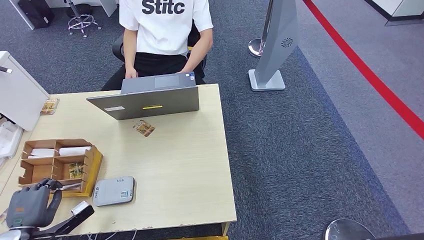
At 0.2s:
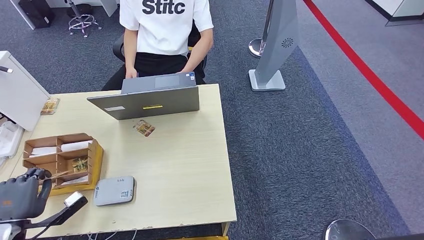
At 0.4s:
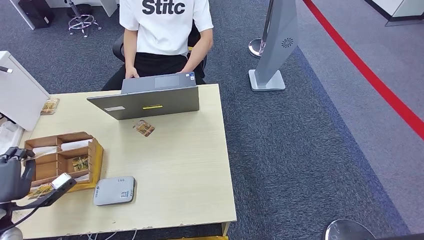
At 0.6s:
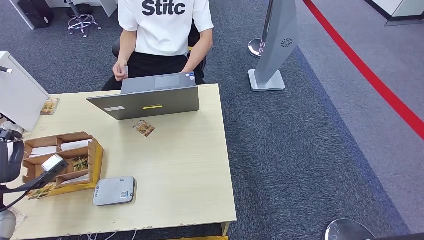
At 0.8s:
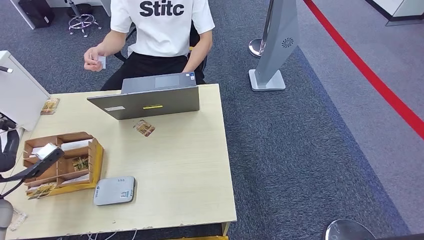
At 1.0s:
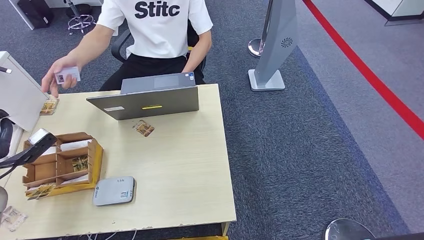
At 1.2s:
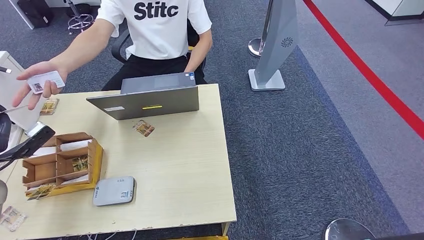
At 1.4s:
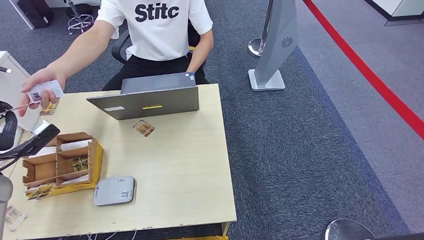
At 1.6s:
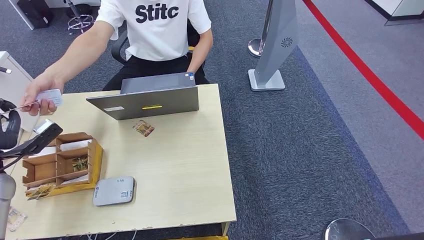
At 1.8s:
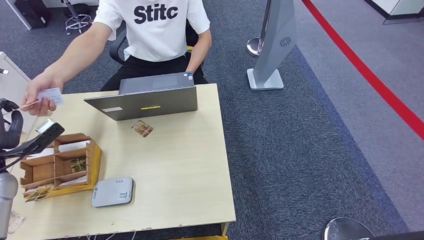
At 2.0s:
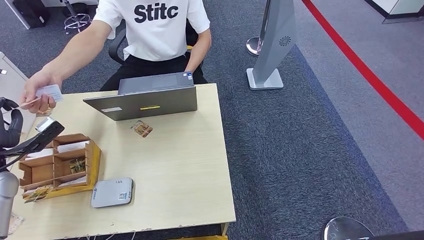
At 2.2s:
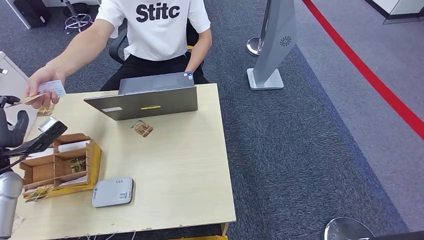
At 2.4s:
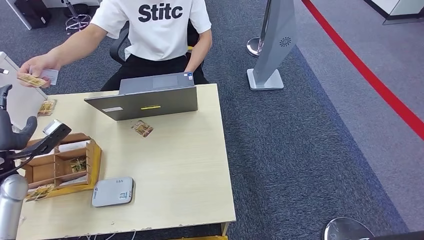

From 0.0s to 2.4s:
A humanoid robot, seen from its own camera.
Step, from 1.0s to 2.4s: Hand the room key to the person.
From 0.0s to 1.2s: The left hand travels upward and forward by some 20 cm.
From 1.2s to 2.4s: The hands make only small movements.

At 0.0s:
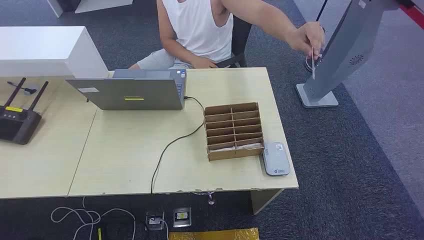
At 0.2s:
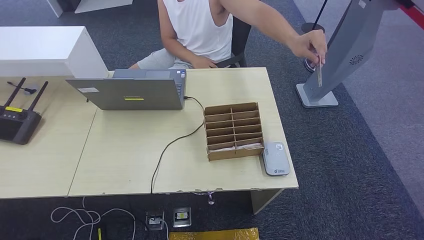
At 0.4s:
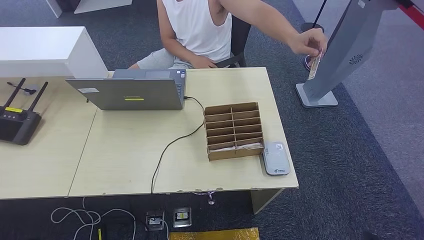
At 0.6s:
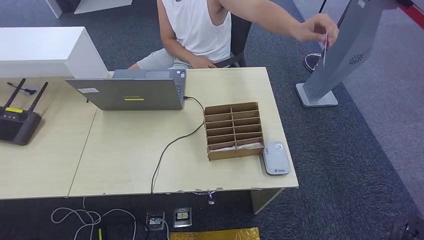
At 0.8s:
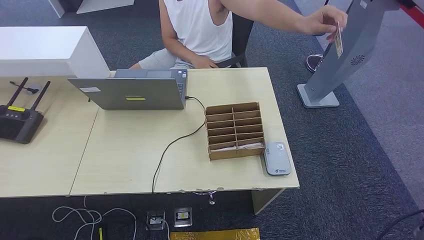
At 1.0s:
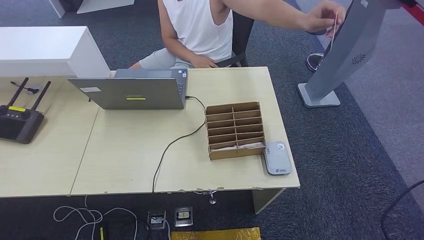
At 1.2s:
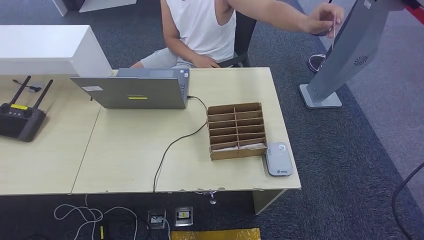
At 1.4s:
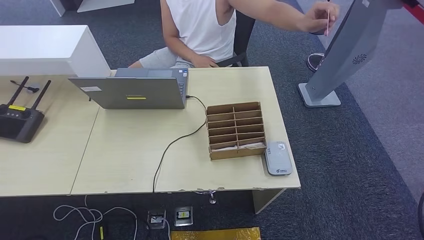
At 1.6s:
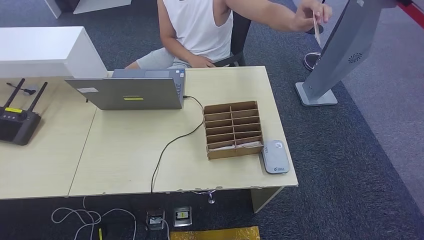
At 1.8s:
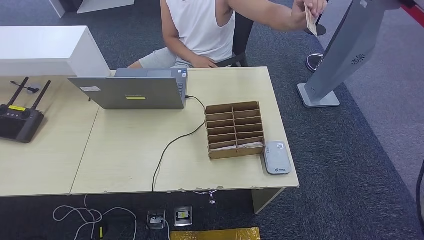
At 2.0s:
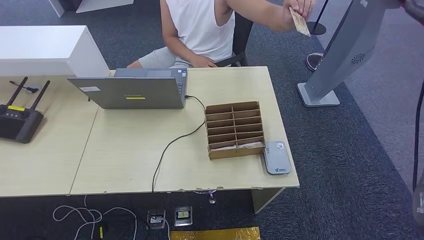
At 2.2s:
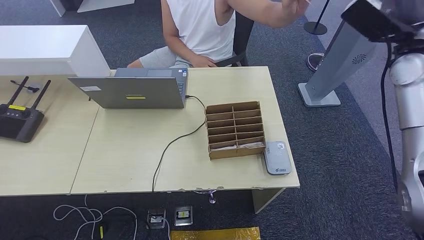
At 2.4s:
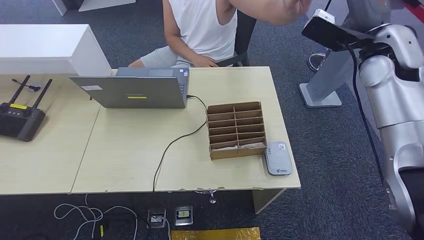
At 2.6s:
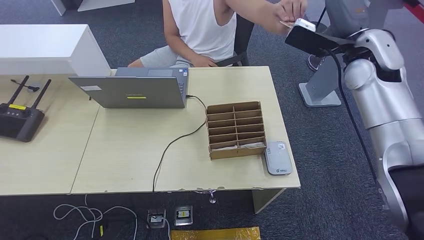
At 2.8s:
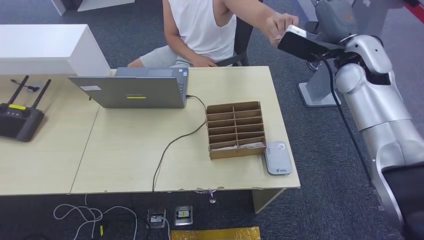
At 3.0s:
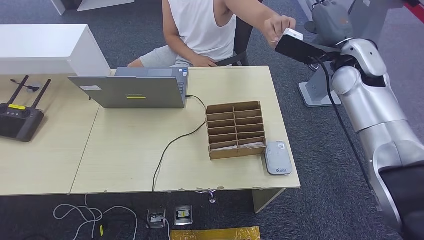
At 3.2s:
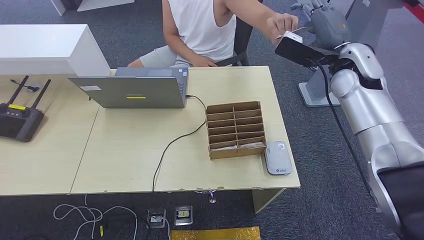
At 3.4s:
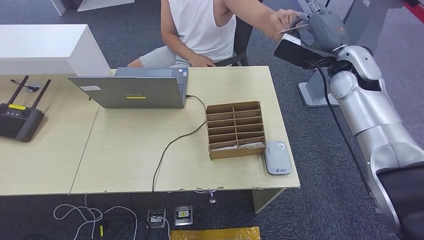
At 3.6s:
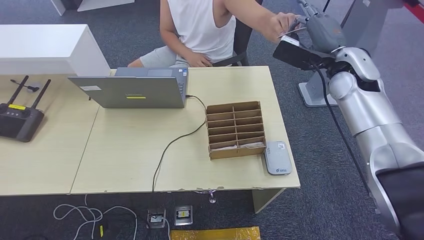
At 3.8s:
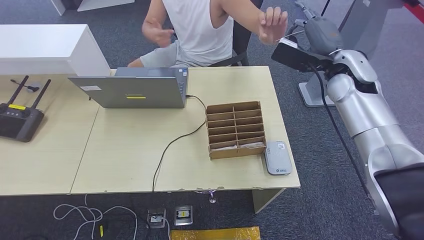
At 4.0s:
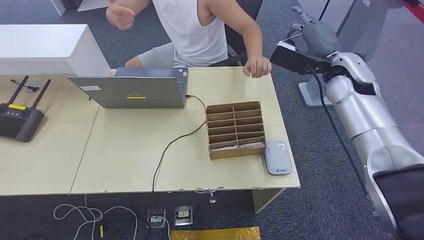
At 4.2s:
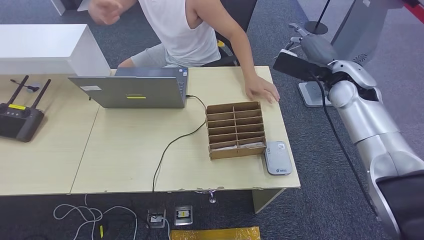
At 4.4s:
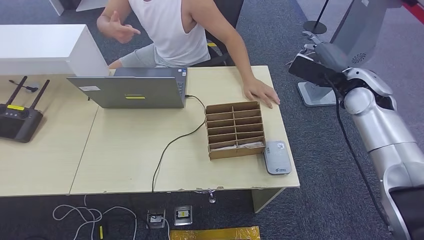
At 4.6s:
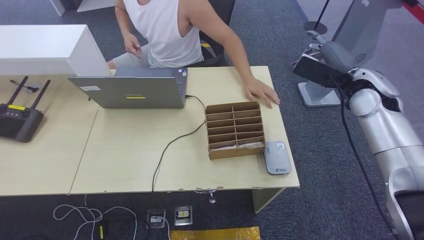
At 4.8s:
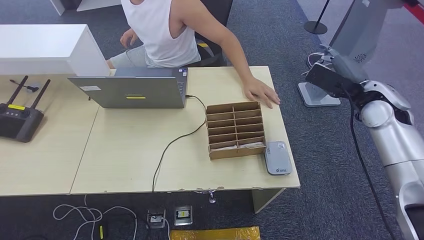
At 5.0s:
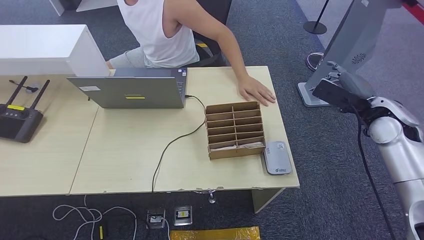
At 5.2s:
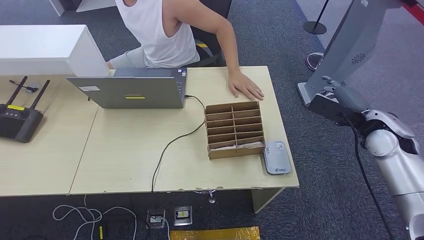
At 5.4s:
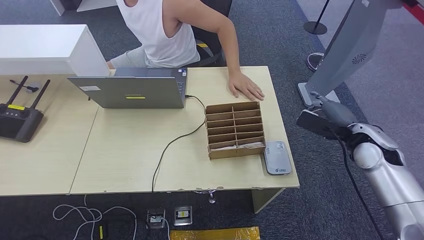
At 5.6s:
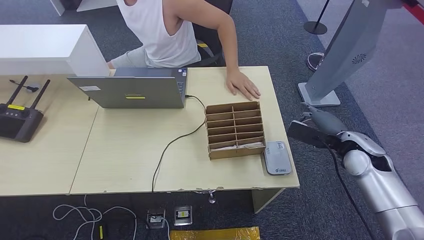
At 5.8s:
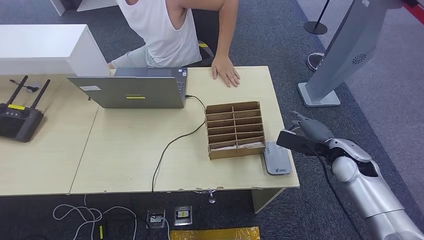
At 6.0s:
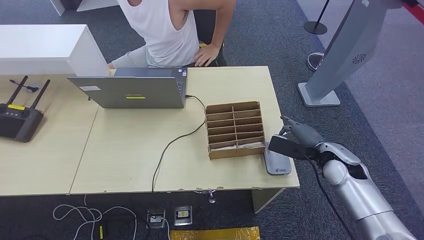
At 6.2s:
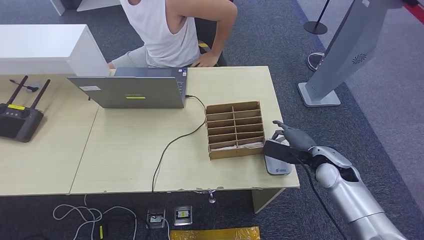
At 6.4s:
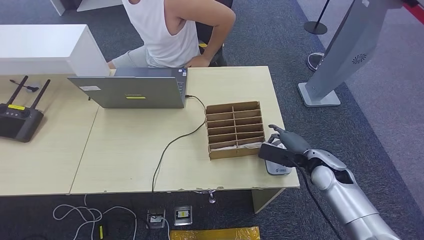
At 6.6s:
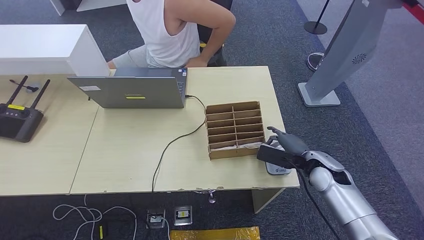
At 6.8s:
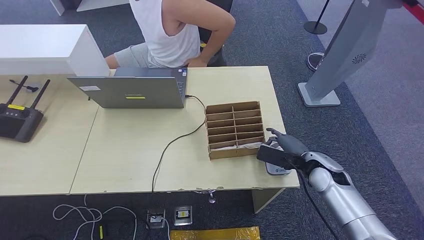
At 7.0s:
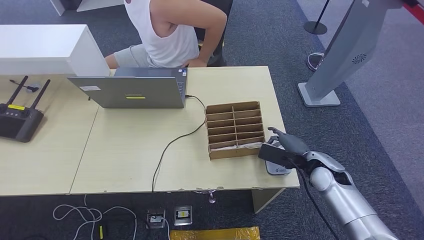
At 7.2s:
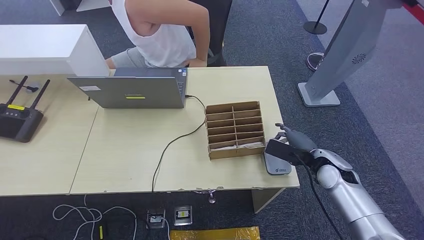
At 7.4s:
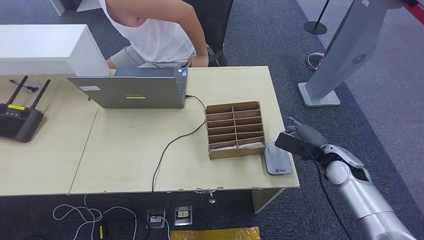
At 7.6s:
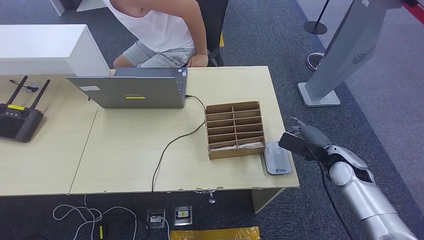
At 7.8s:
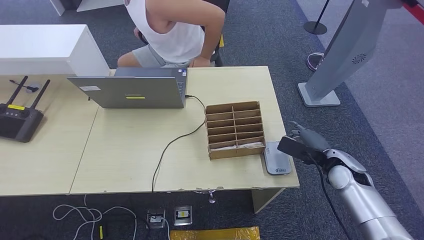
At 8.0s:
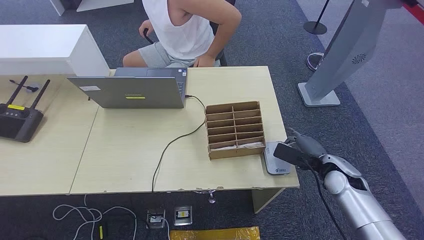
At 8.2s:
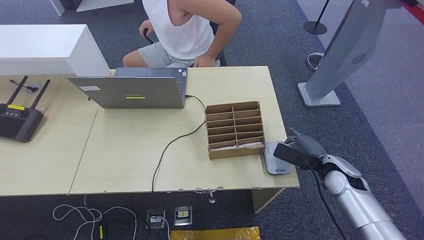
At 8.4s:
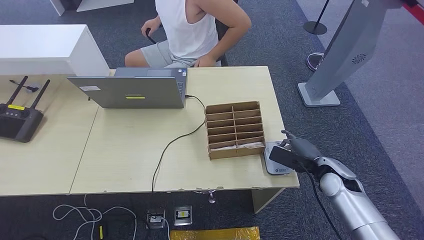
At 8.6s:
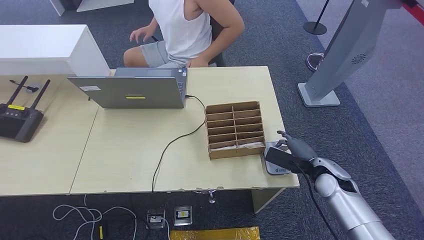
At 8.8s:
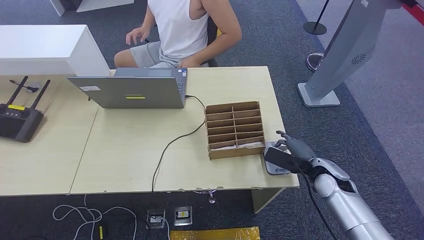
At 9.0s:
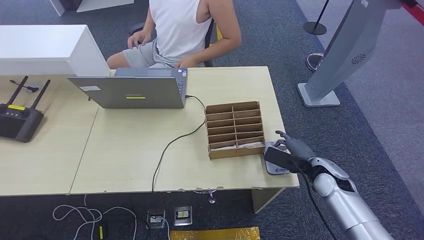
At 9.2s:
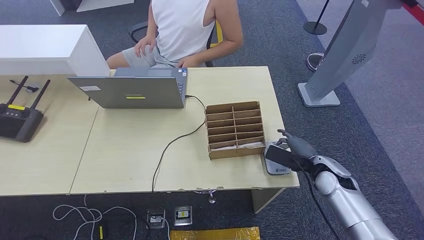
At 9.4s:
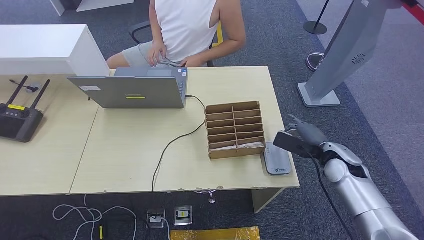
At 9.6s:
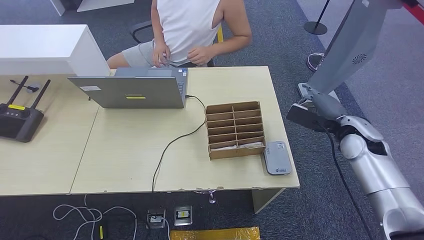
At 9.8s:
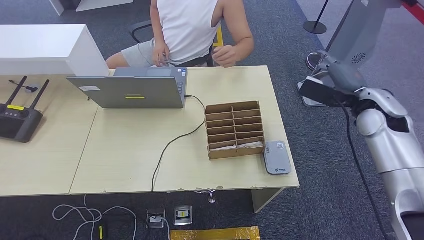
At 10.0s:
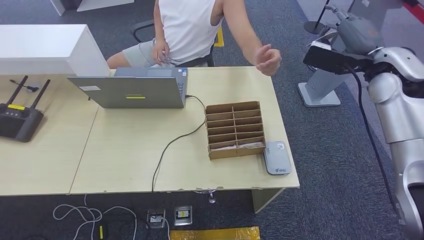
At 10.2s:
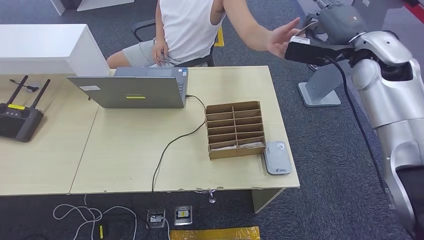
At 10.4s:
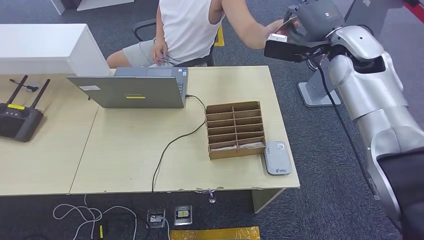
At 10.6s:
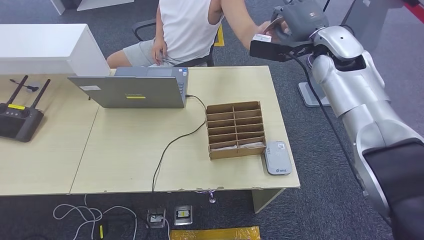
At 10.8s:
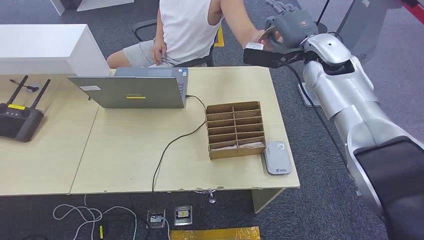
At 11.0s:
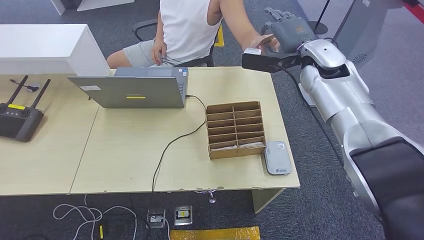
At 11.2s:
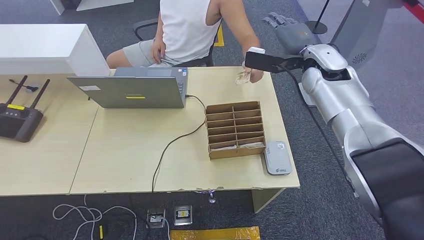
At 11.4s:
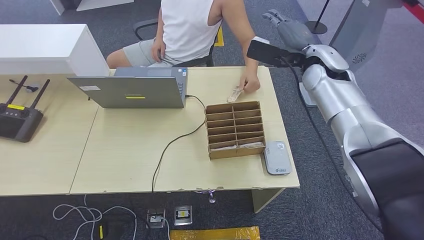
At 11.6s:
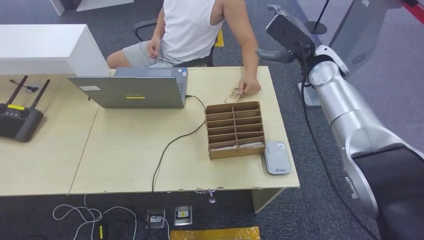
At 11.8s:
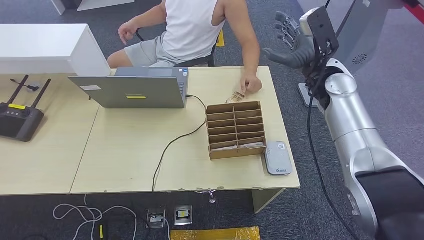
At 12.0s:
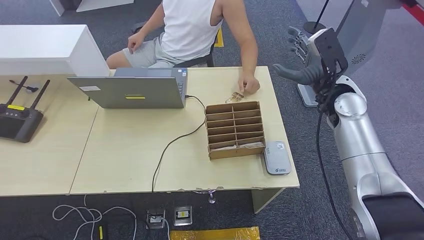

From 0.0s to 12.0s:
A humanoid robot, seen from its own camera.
Step, from 0.0s to 4.4s: Take the ID card from the person's hand.
Step, from 4.6s to 7.6s: Place the ID card on the card reader.
Step, from 7.8s to 10.8s: Hand the ID card to the person.
From 4.4s to 6.0s: The right hand heads downward and backward, covering roughly 20 cm.
From 6.0s to 7.6s: The hands make only small movements.
From 7.6s to 9.0s: The right hand changes place by about 5 cm.
From 10.4s to 12.0s: The right hand moves downward, approximately 10 cm.

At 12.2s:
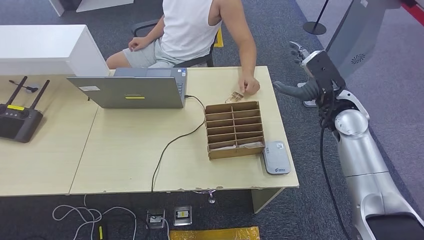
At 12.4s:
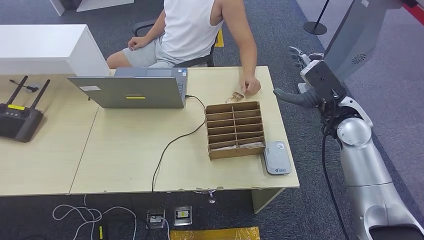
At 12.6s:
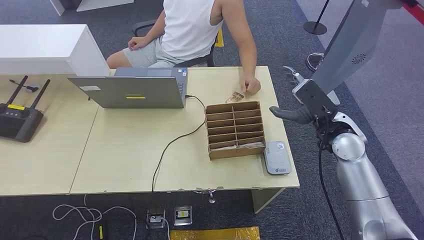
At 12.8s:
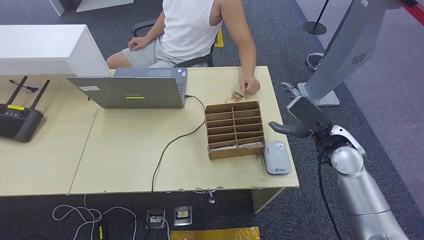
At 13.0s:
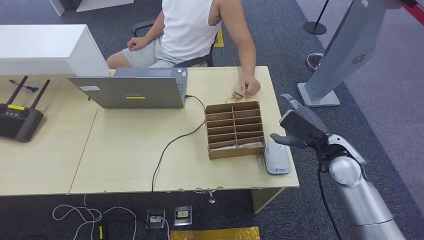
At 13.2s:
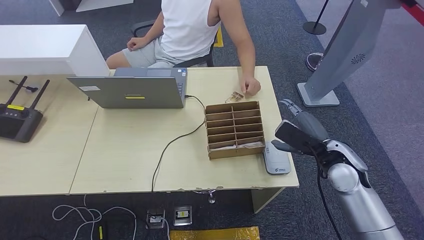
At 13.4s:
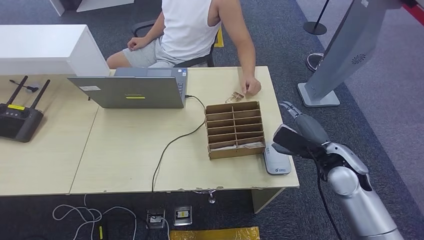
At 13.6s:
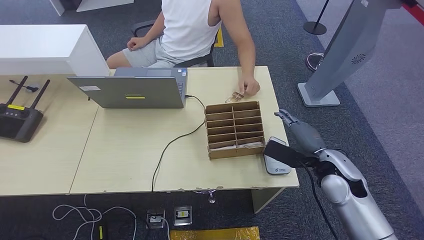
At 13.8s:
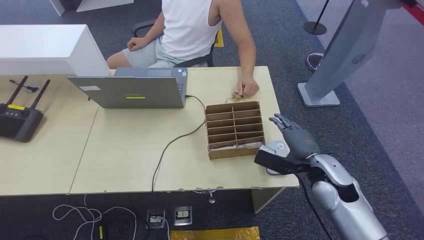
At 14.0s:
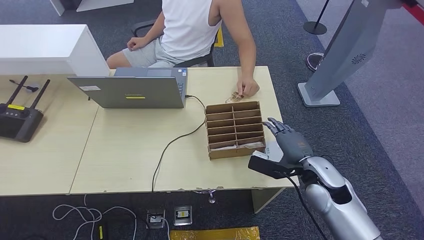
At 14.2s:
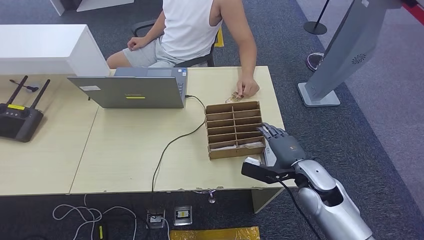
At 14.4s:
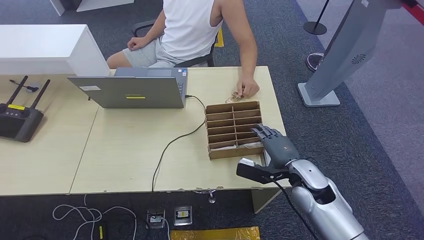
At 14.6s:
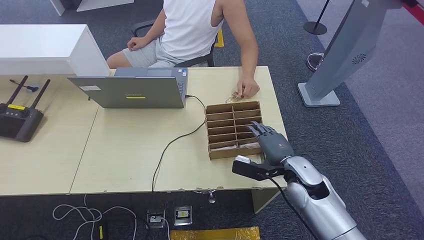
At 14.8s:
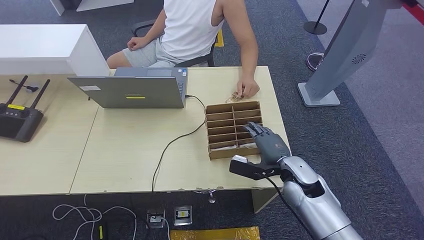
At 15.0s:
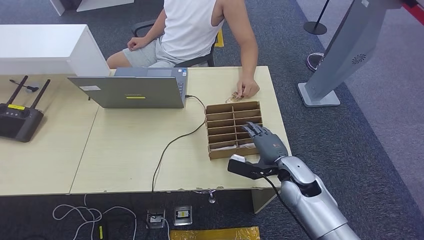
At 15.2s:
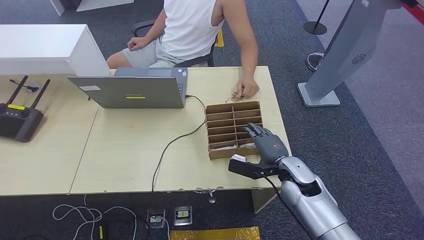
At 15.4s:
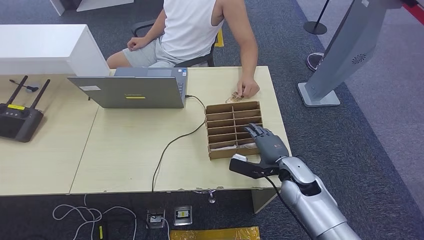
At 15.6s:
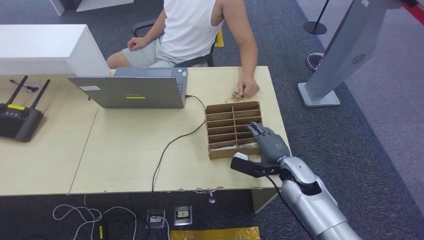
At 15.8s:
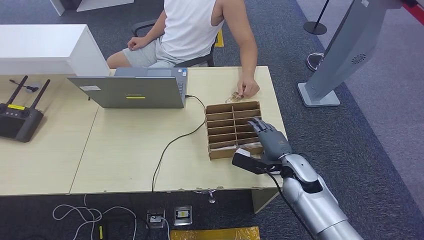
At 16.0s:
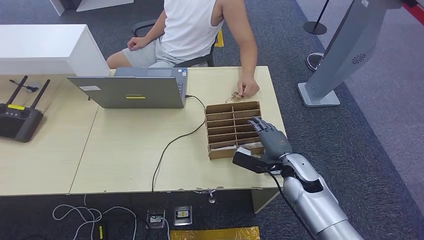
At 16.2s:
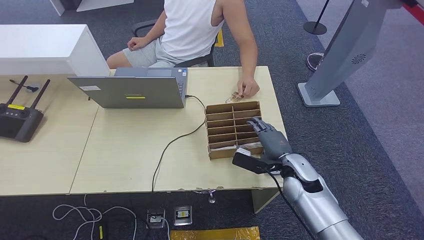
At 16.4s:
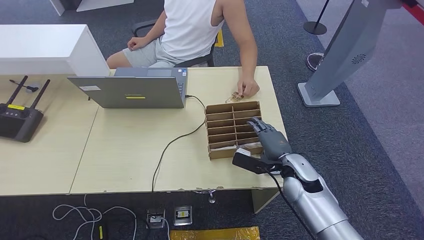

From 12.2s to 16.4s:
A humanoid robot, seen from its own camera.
From 12.2s to 13.6s: The right hand is displaced backward and downward by about 15 cm.
From 13.6s to 15.0s: The right hand shifts approximately 10 cm to the left and downward.
From 15.0s to 16.4s: There are only small adjustments of the hands.
